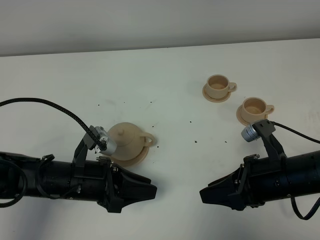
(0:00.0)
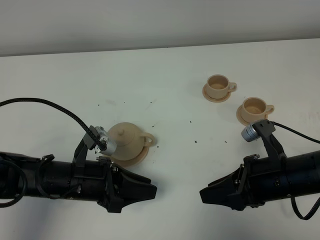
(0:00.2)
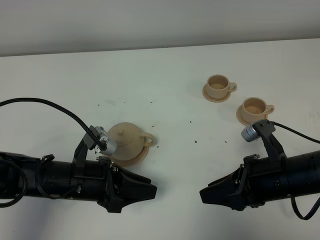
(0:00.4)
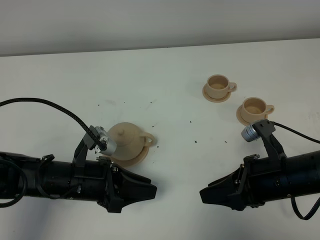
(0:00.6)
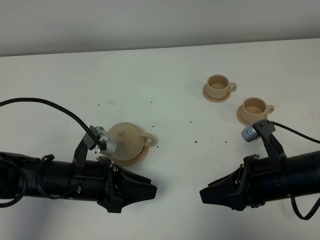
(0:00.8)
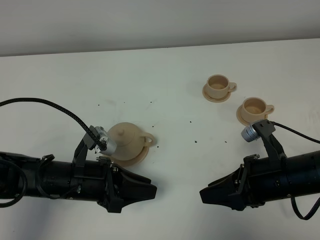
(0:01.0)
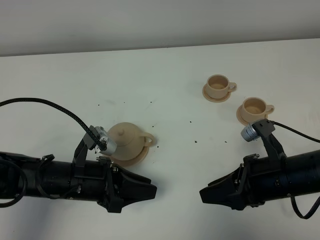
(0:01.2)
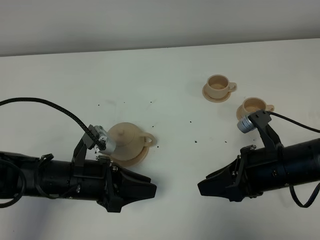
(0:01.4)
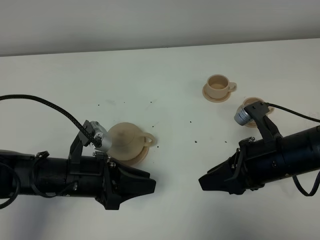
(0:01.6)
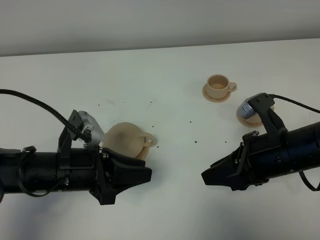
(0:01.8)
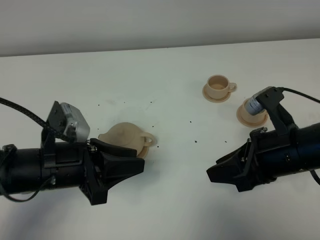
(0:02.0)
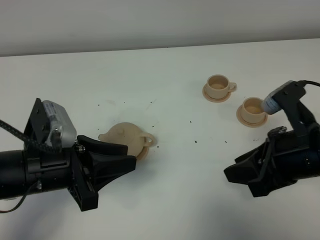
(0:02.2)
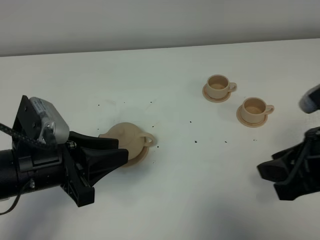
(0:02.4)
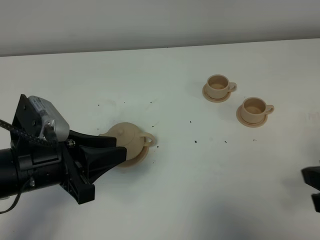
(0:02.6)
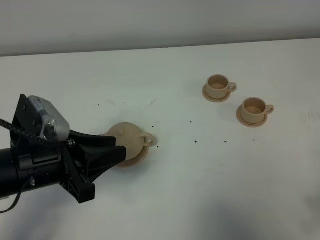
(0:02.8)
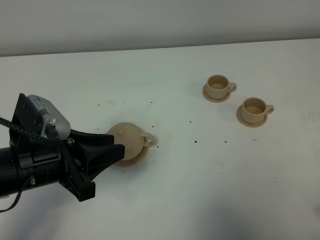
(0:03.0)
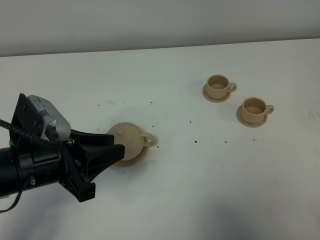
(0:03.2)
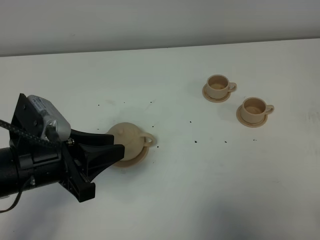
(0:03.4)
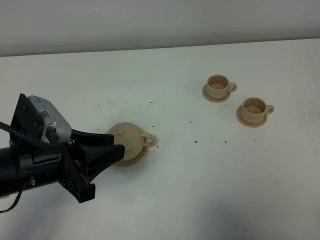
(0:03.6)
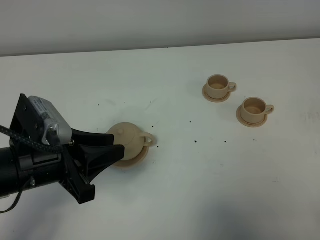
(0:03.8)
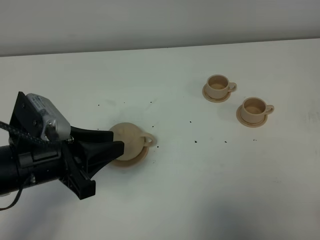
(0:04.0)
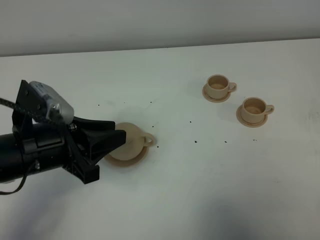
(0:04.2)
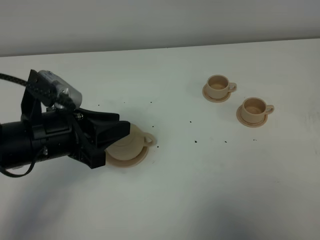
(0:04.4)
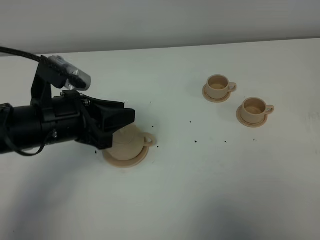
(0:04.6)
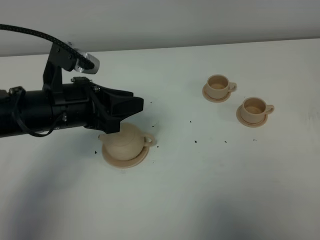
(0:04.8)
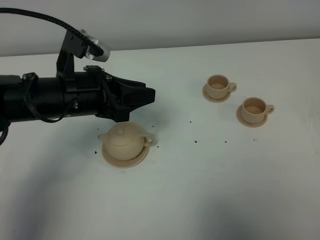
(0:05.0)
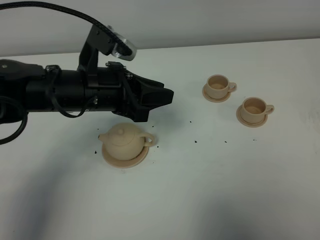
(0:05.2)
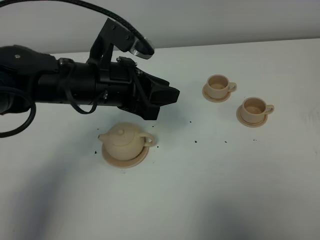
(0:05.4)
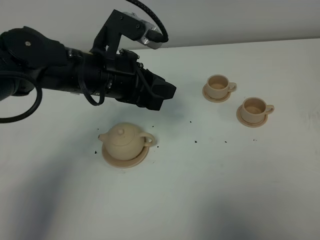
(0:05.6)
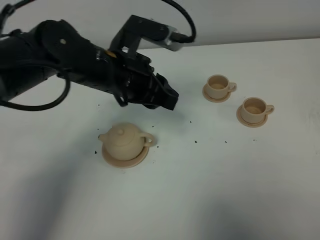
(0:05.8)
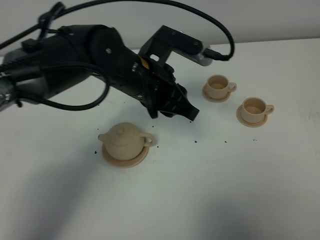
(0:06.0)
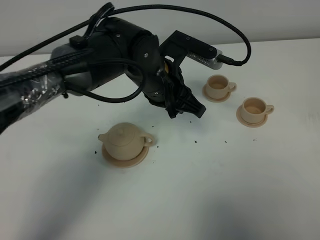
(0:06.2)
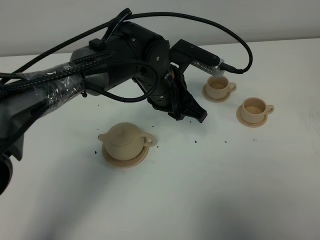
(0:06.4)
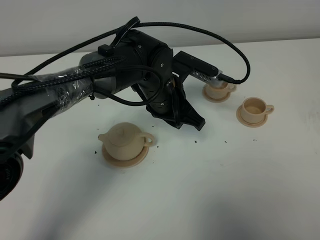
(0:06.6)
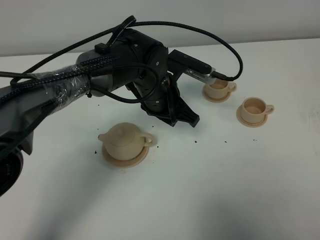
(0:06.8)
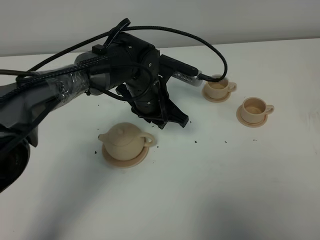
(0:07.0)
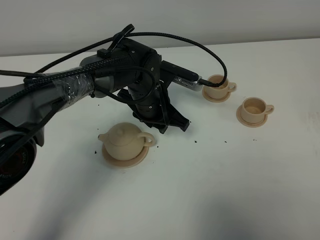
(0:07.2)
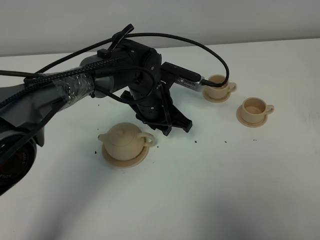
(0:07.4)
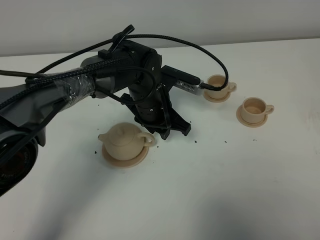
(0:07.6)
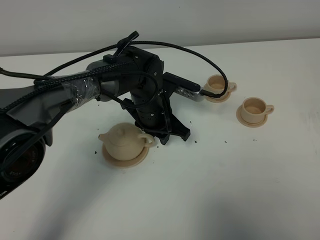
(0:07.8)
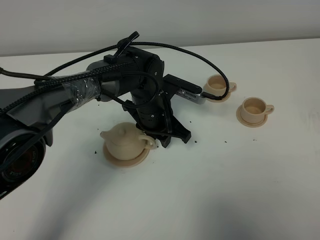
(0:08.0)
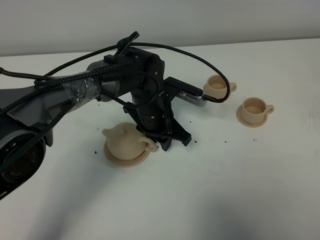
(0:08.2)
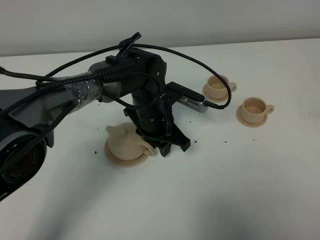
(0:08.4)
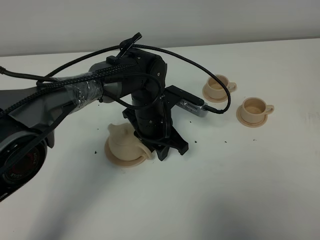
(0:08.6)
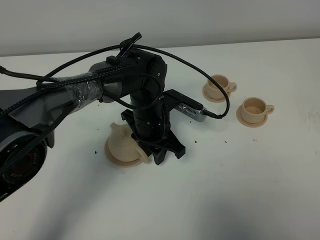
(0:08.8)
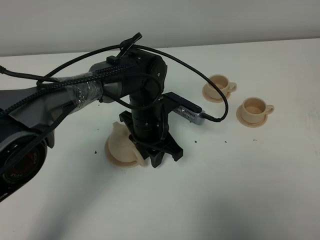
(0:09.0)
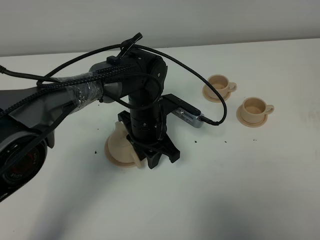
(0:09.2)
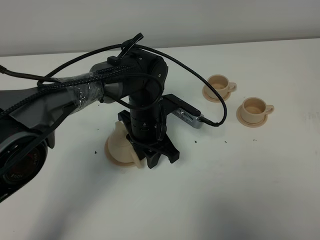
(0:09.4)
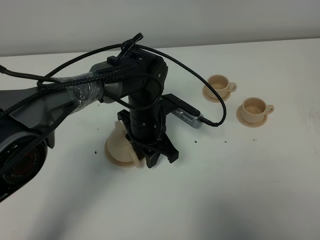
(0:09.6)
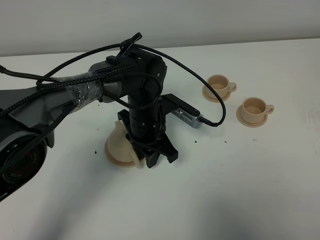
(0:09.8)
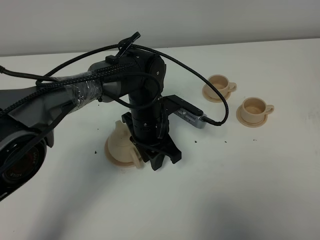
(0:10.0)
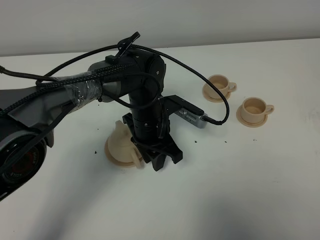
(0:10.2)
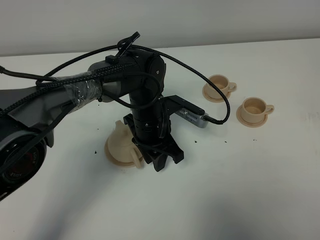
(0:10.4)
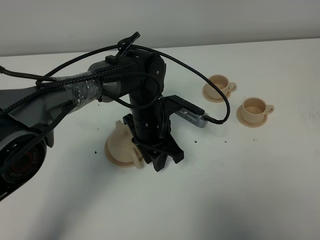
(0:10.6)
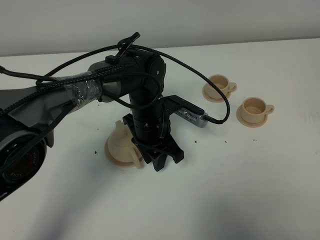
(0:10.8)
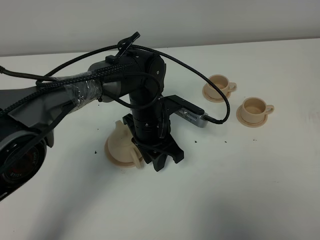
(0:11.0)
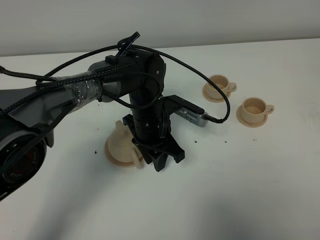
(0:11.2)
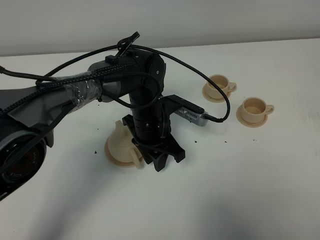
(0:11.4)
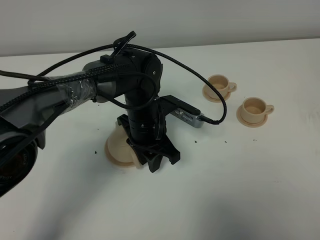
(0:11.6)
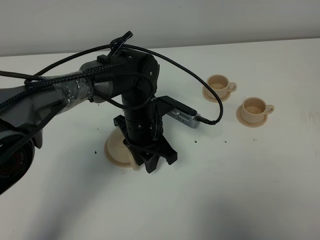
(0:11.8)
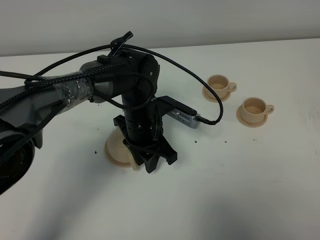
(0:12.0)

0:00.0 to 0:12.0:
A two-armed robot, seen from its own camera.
Task of the whole recording: grasp the brown teapot and pour the tea into the two brown teacups one by one, put the brown teapot back in its original place.
0:00.0 to 0:01.6: The grippers stay close to where they were, moving slightly.
0:01.6 to 0:03.0: The right gripper goes approximately 25 cm backward, to the right and upward; the left gripper is displaced upward by some 10 cm.
0:04.4 to 0:06.0: The left gripper is displaced to the right and forward by about 20 cm.
0:06.0 to 0:07.6: The left gripper shifts approximately 10 cm downward and forward.
0:07.6 to 0:09.0: The grippers stay close to where they were, moving slightly.
0:09.0 to 0:12.0: The grippers make only small movements.

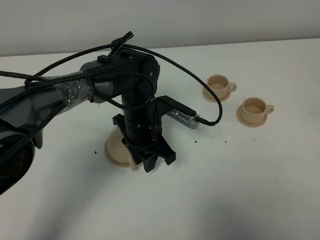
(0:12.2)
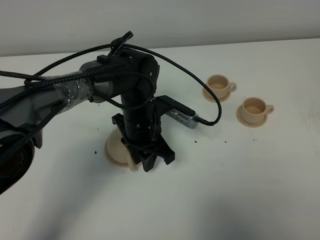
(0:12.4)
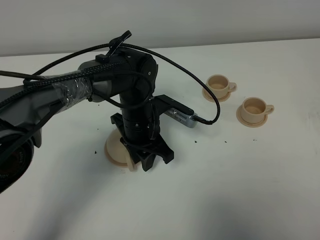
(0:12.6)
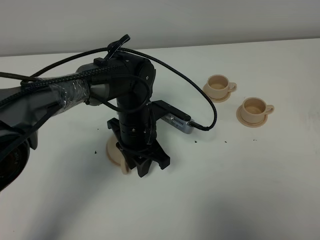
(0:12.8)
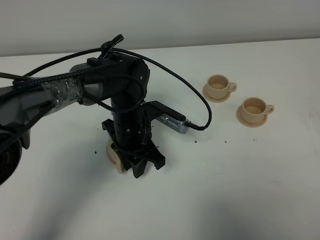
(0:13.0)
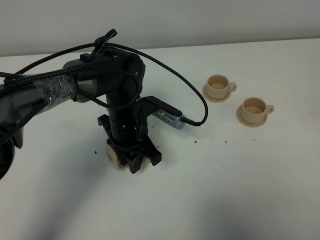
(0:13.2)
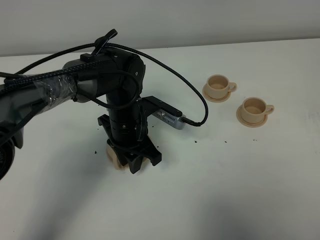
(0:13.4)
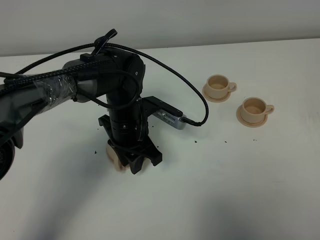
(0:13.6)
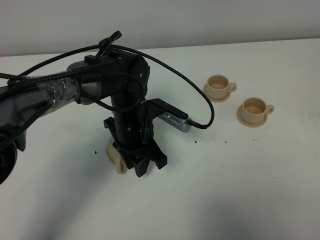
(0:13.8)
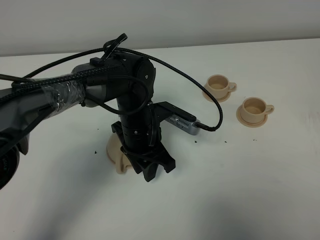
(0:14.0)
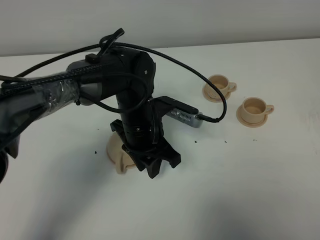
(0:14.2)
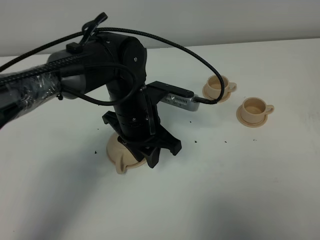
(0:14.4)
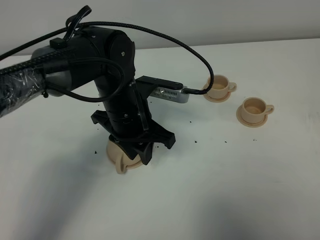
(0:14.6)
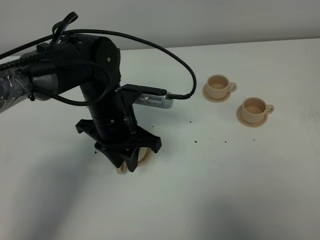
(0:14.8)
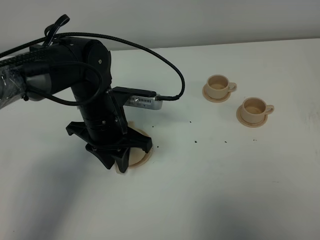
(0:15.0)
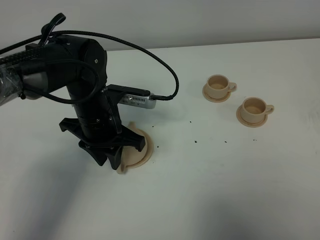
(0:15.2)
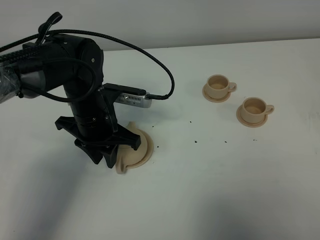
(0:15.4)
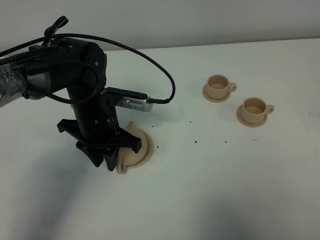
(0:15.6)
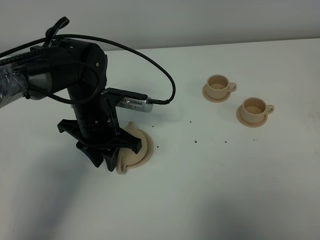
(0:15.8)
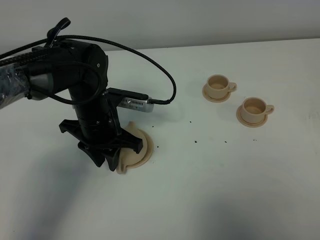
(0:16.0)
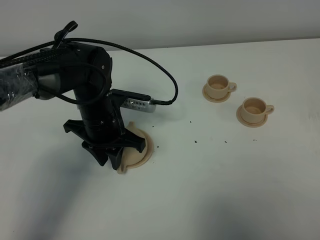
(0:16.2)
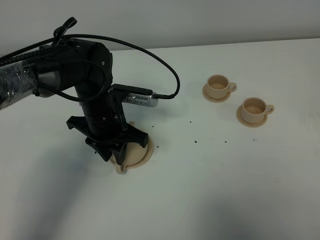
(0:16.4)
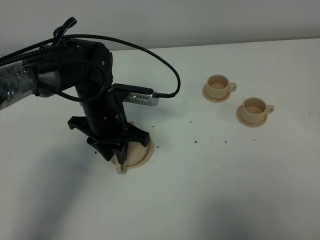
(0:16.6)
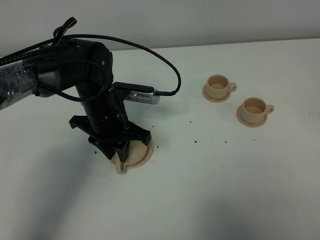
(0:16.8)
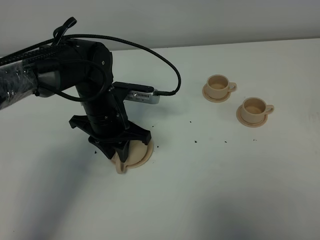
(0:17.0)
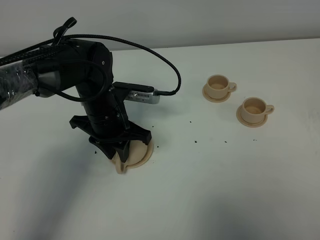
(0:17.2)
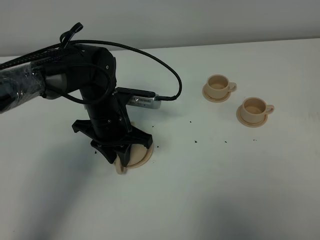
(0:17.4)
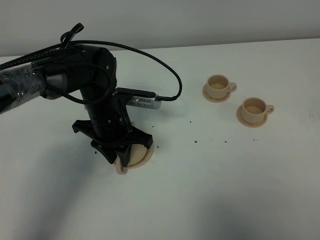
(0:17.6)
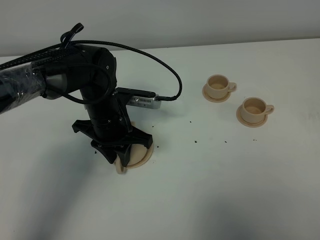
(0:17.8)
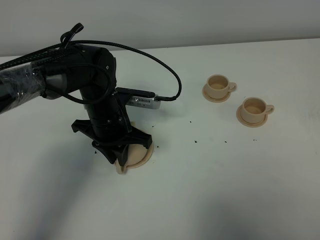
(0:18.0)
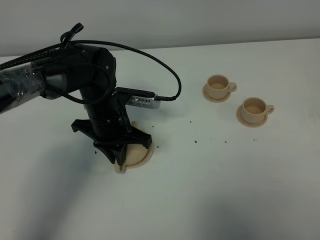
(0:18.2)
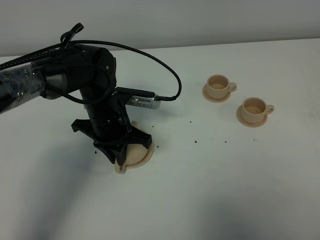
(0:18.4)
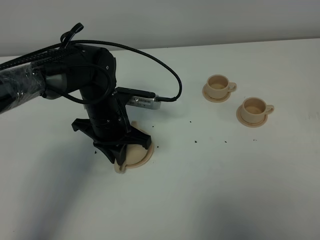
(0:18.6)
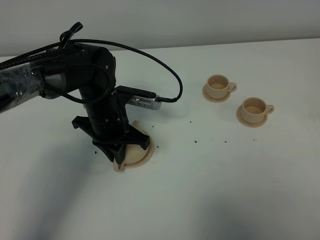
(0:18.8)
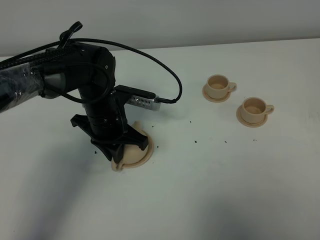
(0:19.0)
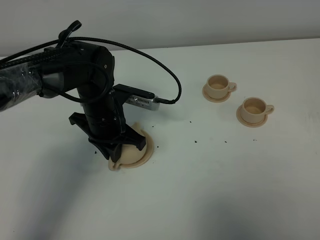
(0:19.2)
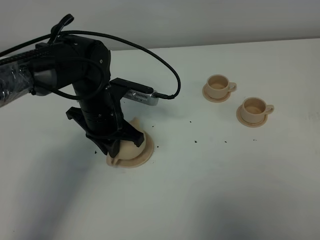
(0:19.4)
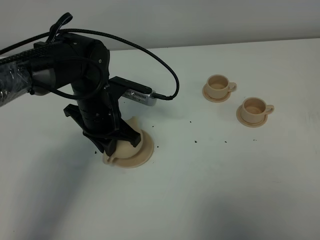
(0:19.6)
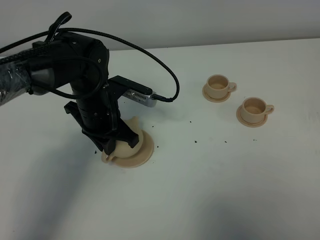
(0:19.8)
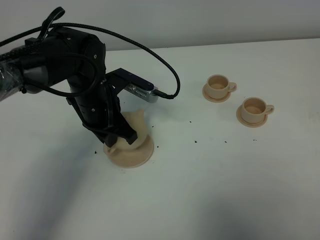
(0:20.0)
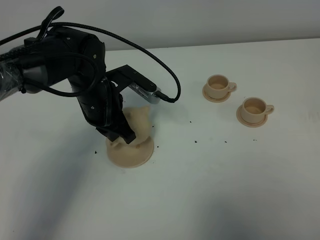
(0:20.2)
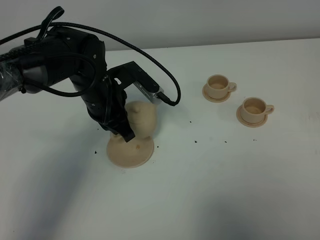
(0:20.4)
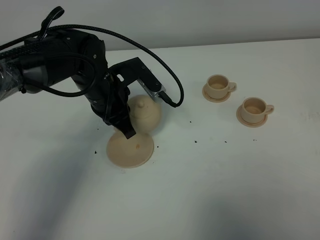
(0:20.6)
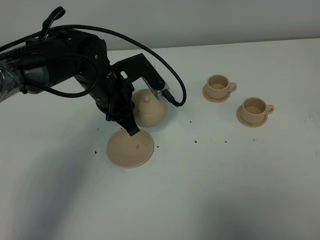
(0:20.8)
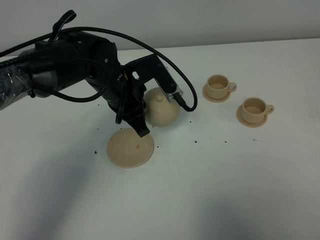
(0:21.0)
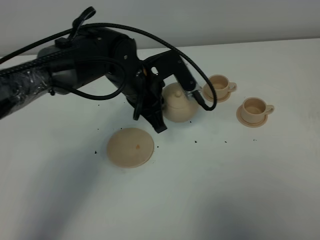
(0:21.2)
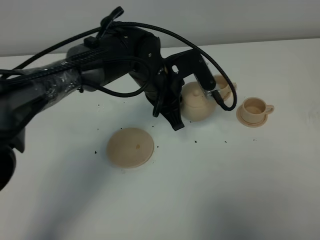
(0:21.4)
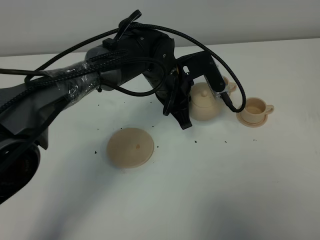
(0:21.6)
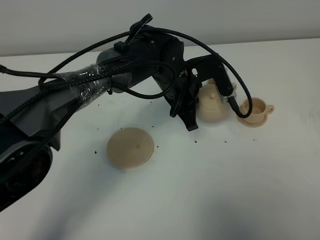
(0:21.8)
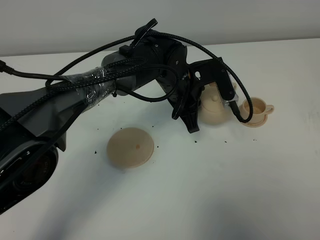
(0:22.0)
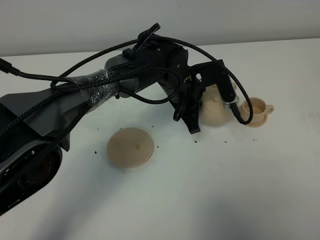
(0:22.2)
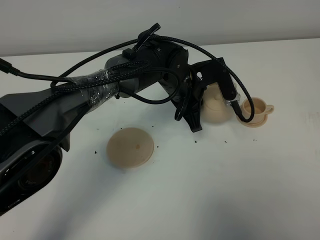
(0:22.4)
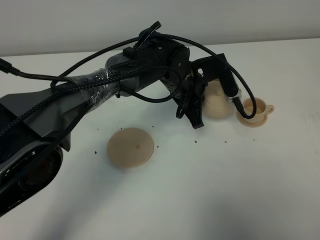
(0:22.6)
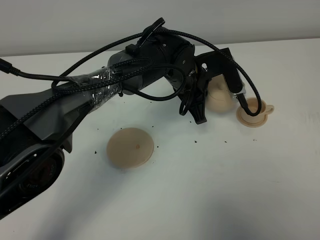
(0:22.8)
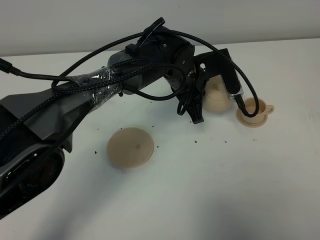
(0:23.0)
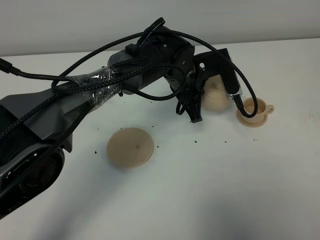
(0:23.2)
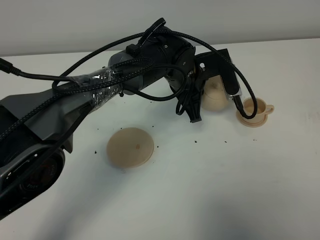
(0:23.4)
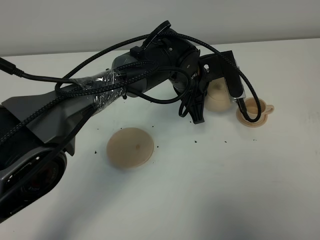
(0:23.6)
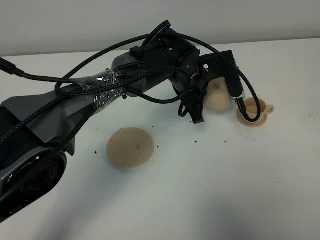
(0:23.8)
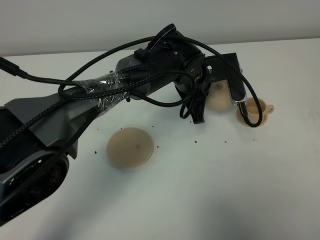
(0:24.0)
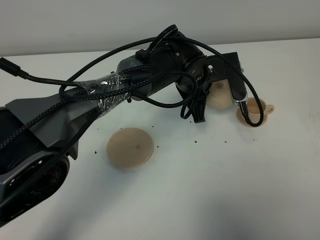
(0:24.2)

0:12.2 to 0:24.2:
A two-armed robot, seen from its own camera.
Task of the whole recording: grasp the brown teapot and pour the tea into the two brown teacups one by one, put the brown teapot back in its original place.
Step, 0:12.2 to 0:19.2: Pick up the teapot with the left gripper.
0:12.2 to 0:13.8: The grippers make only small movements.
0:13.8 to 0:15.2: The left gripper moves to the left, about 5 cm.
0:15.2 to 0:16.6: The grippers make only small movements.
0:16.6 to 0:18.2: The left gripper closes its fingers.
0:18.2 to 0:19.8: There are only small adjustments of the grippers.
0:19.8 to 0:21.2: The left gripper shifts roughly 10 cm to the right.
0:21.2 to 0:22.6: The left gripper shifts about 5 cm to the right.
0:22.6 to 0:24.2: There are only small adjustments of the grippers.
